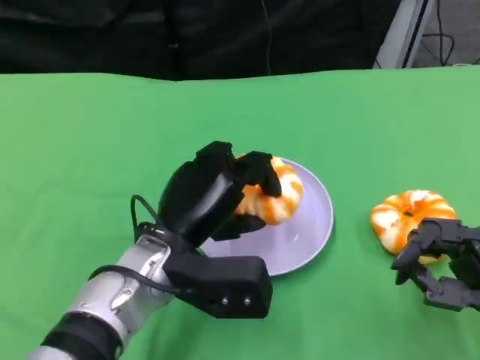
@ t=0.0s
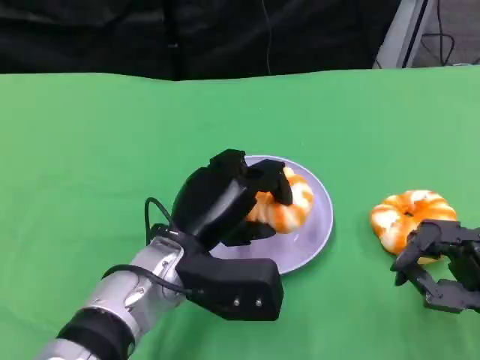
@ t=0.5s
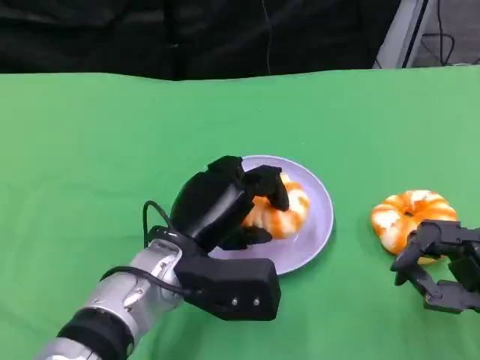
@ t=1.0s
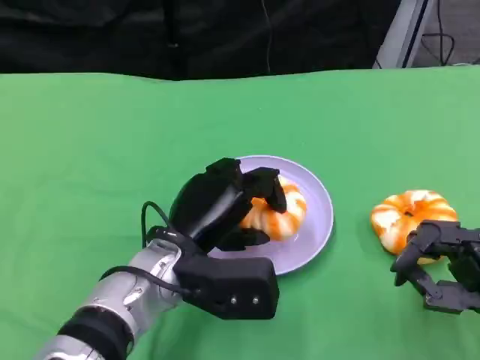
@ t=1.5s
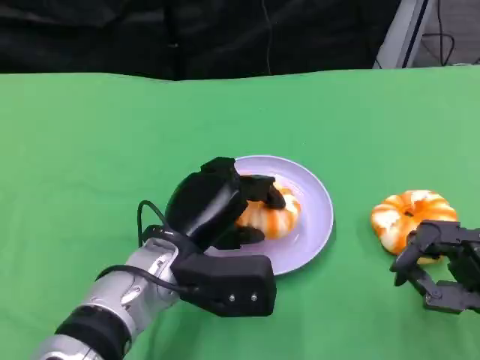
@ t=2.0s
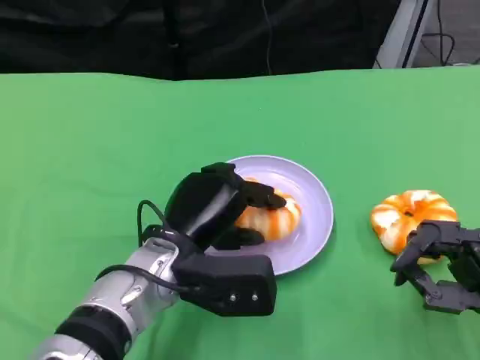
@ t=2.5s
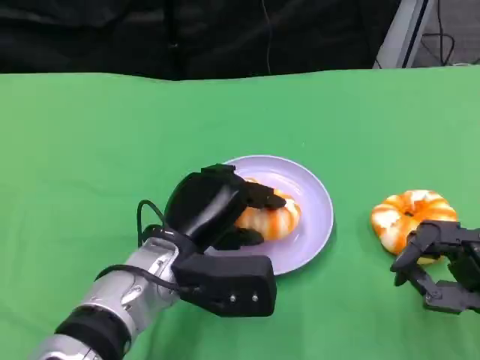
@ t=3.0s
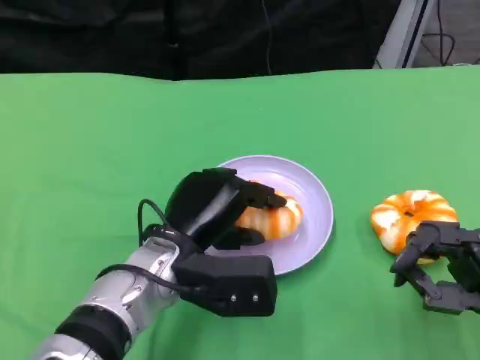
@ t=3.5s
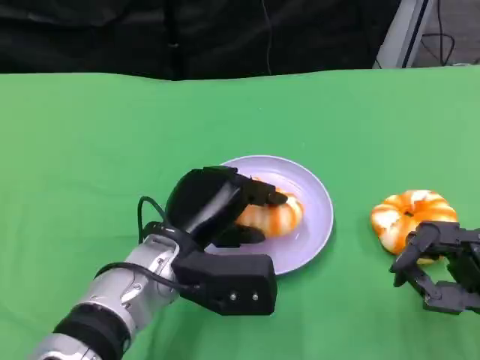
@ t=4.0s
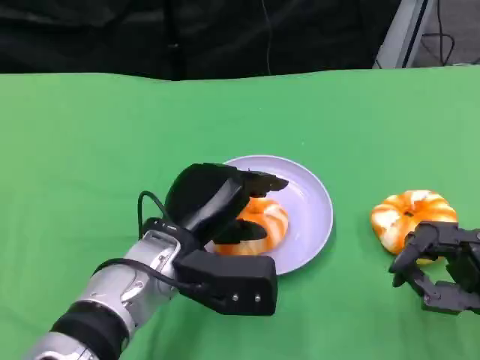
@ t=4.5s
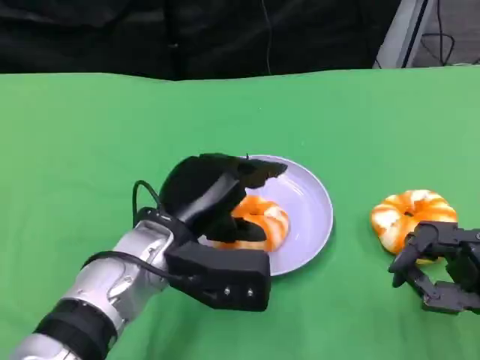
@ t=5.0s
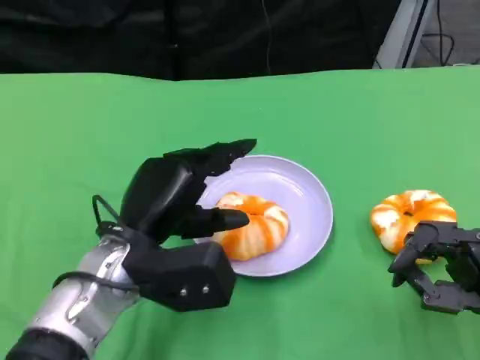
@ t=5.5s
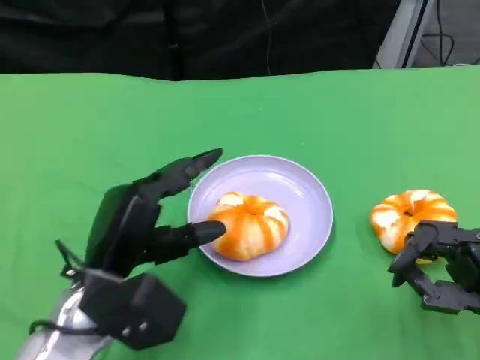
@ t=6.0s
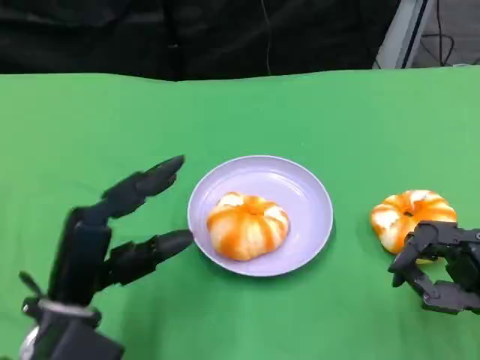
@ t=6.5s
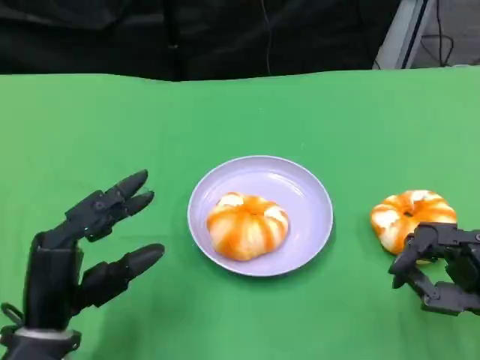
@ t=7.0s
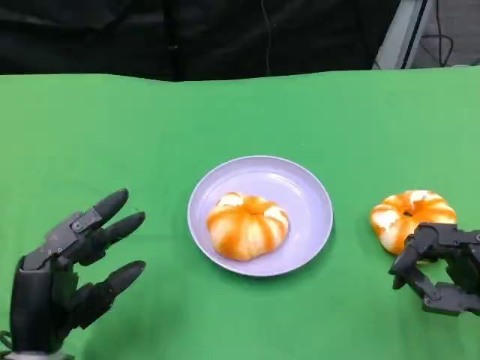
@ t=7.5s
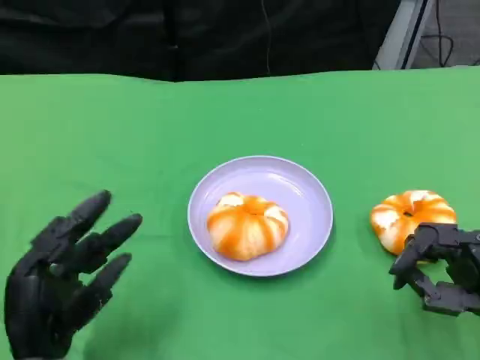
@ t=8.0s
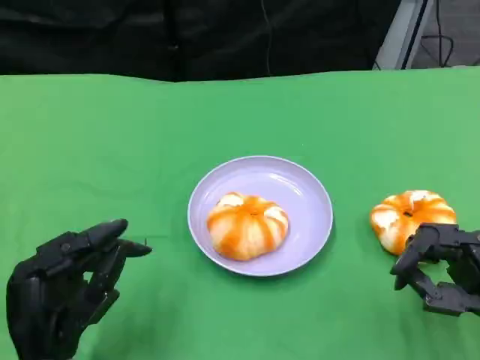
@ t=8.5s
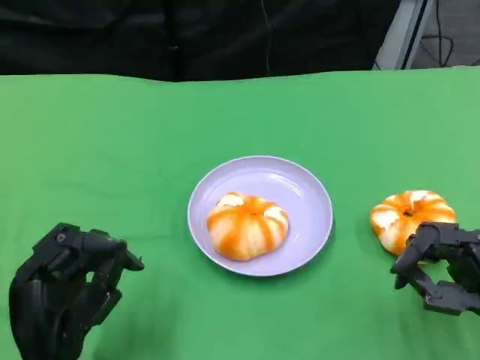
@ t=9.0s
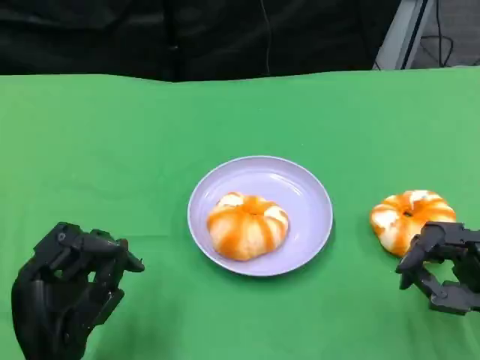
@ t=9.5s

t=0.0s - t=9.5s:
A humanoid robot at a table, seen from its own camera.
Task of the whole recording: Grasp the bread from the table and place it into the plate.
t=0.0s - t=2.0s: There are only small adjustments of the hands.
t=2.0s - t=4.0s: The two hands keep their place.
t=4.0s - t=5.5s: The hands move only a little.
t=5.5s - t=7.5s: The left hand shifts some 15 cm backward, to the left and downward.
t=7.5s - t=9.5s: The hands make only small movements.

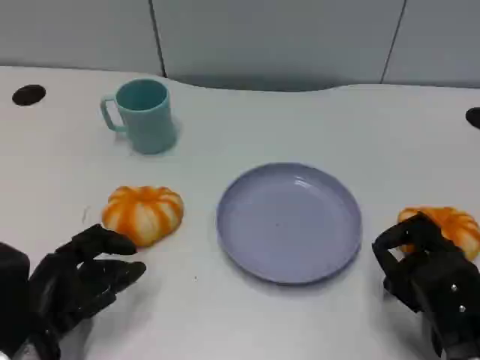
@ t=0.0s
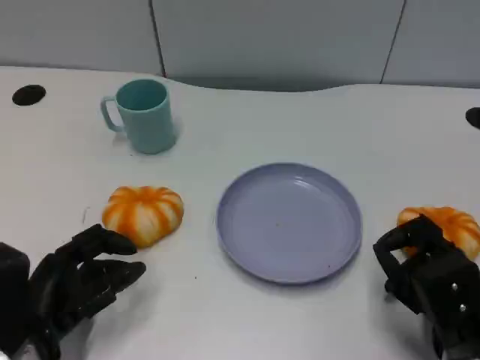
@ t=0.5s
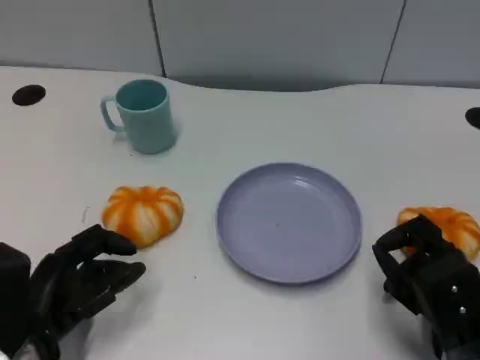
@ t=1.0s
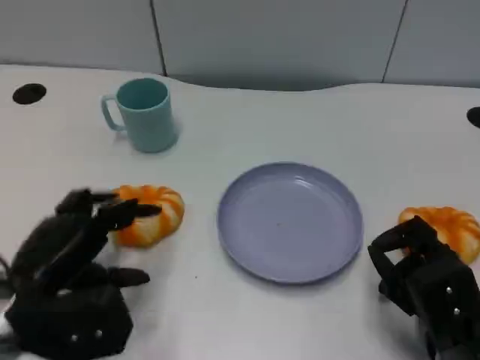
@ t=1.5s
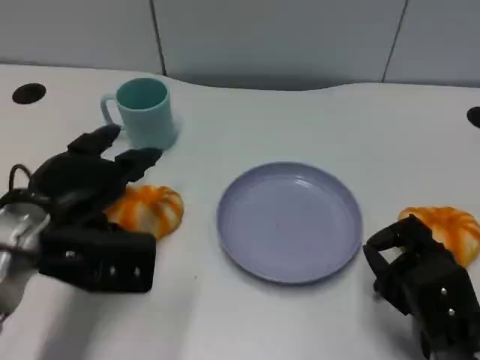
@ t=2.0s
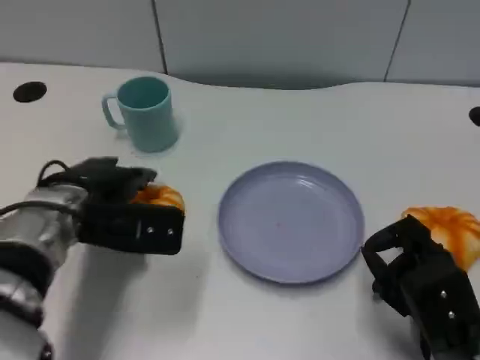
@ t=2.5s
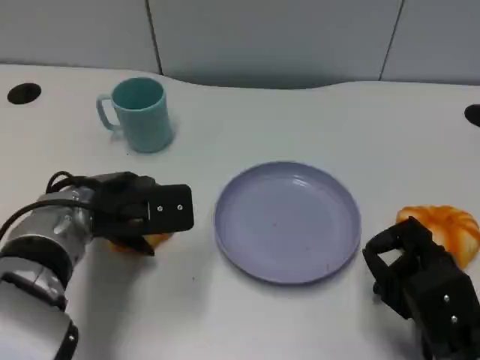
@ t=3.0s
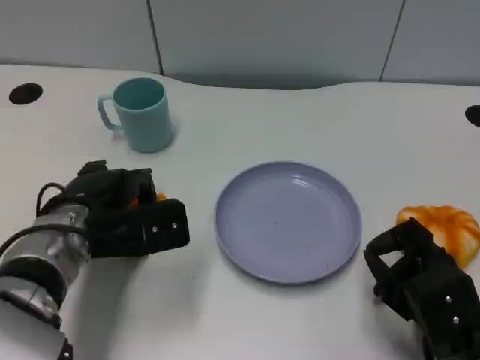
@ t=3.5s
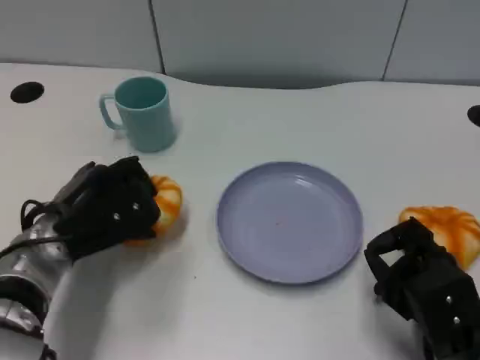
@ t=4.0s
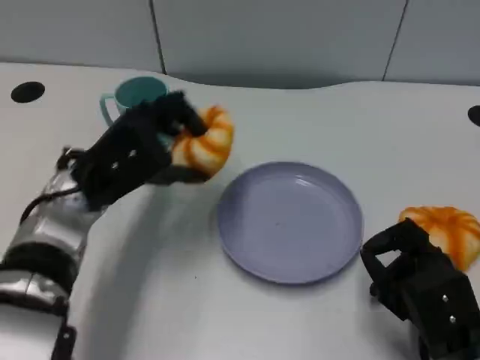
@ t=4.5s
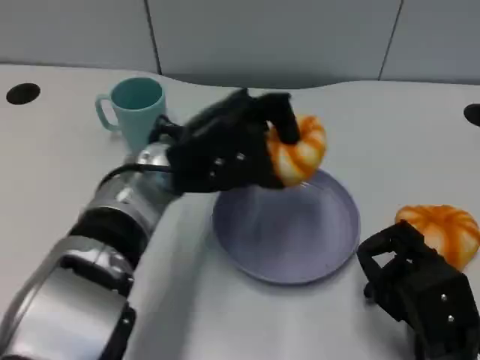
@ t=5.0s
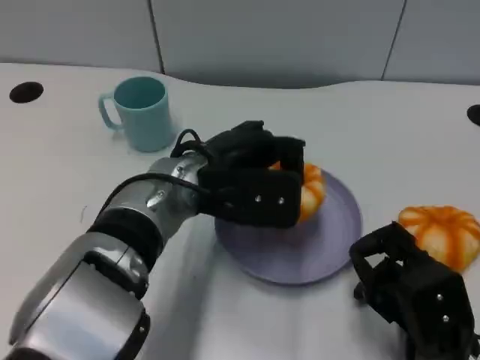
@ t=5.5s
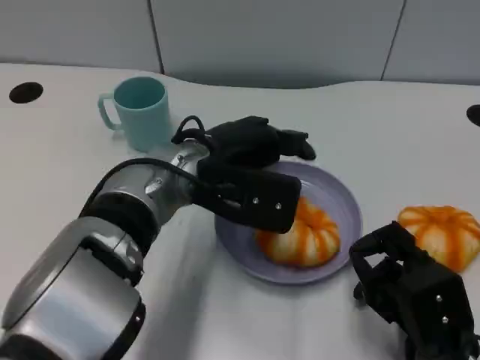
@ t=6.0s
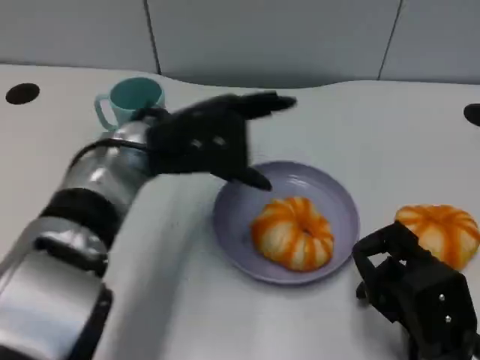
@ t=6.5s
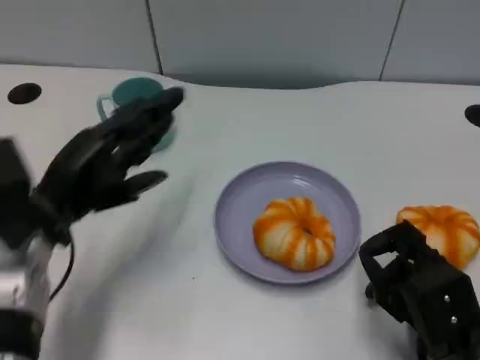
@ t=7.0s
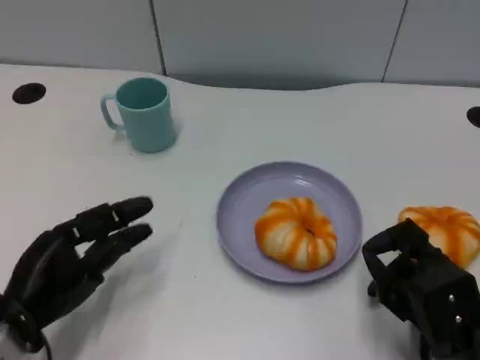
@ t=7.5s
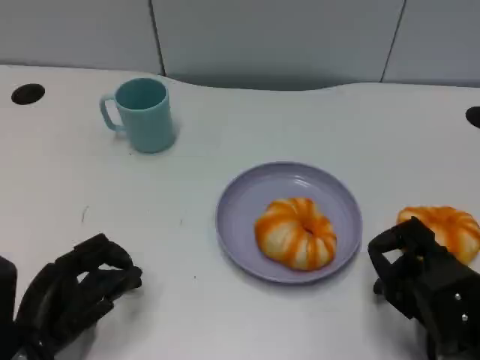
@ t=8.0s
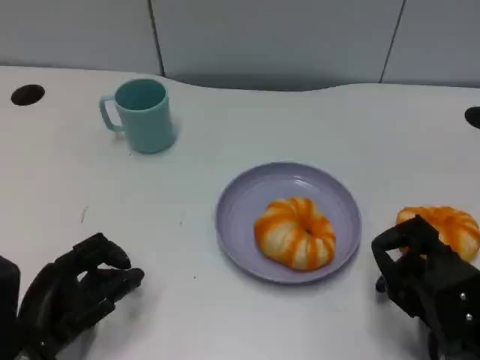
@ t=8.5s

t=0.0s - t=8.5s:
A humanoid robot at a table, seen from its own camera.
Task of the whole recording: Grasp the bread from the table and place it into the plate.
t=0.0s - t=2.0s: The left hand shifts approximately 10 cm upward and forward.
t=4.0s - t=6.5s: The left hand shifts about 10 cm upward and to the right.
t=6.5s - t=8.5s: The left hand heads backward, downward and to the left, covering some 25 cm.

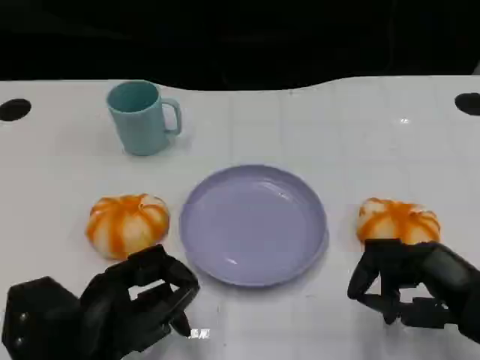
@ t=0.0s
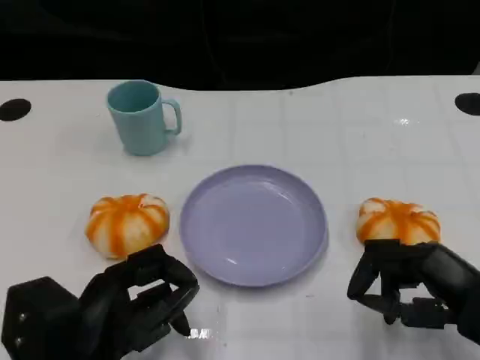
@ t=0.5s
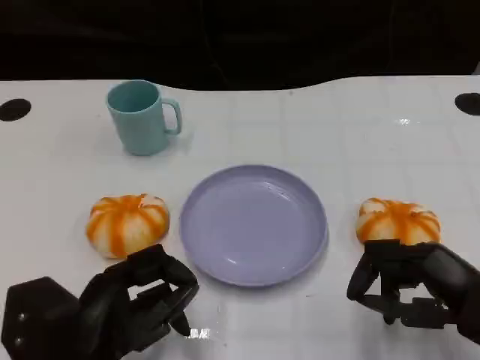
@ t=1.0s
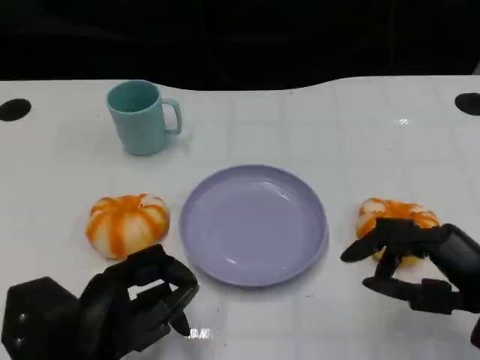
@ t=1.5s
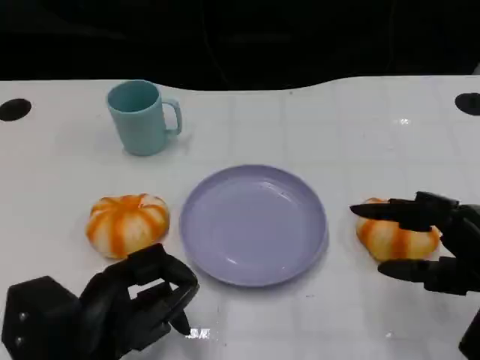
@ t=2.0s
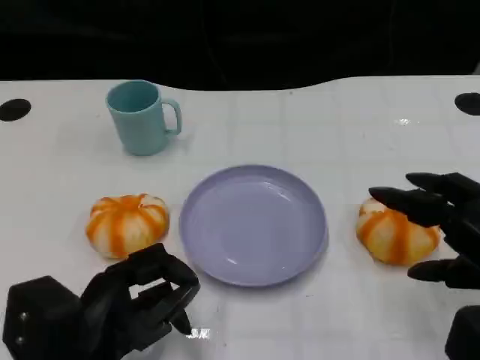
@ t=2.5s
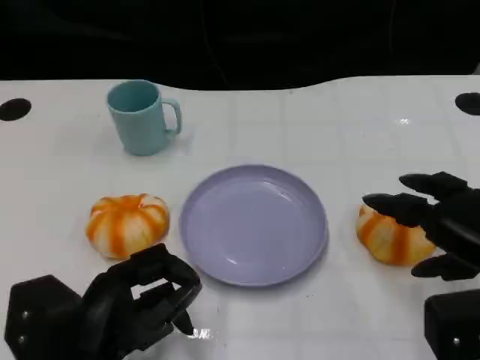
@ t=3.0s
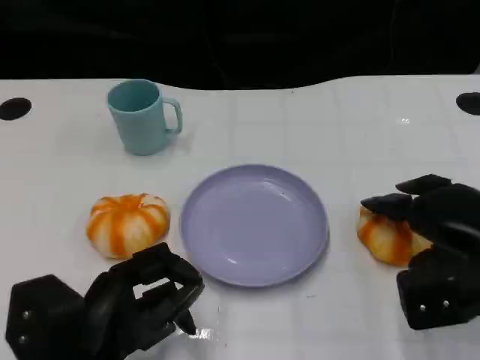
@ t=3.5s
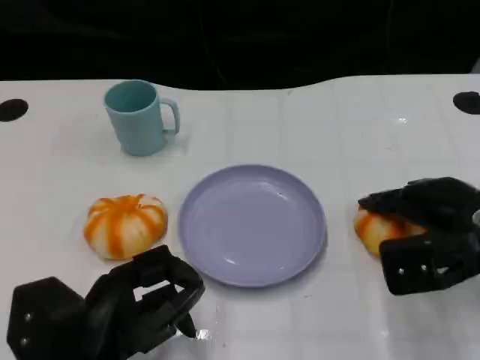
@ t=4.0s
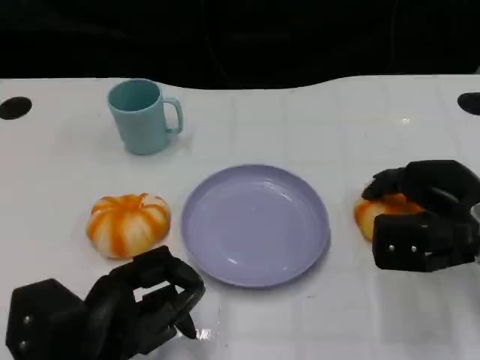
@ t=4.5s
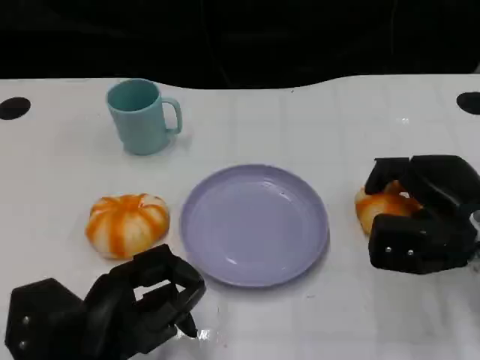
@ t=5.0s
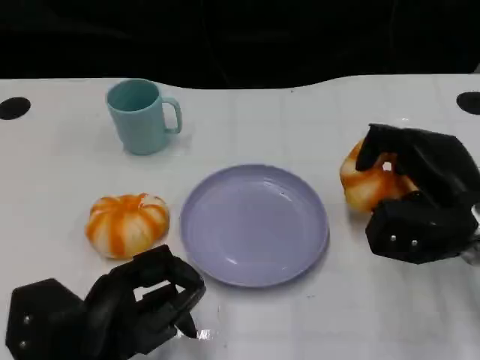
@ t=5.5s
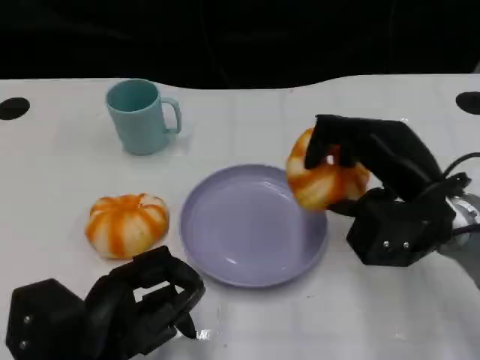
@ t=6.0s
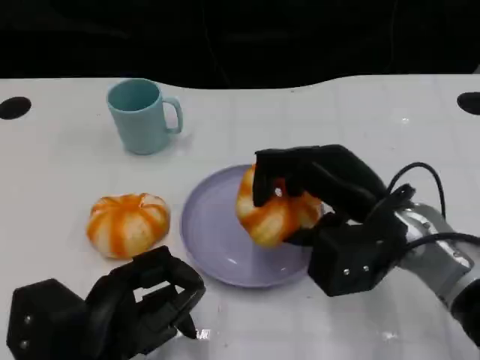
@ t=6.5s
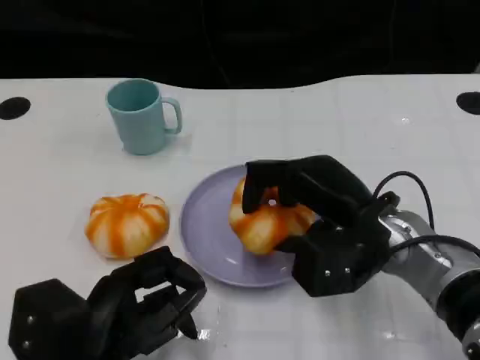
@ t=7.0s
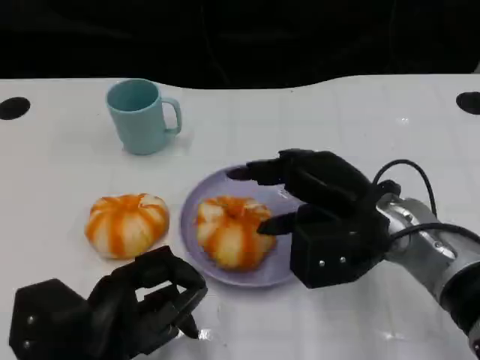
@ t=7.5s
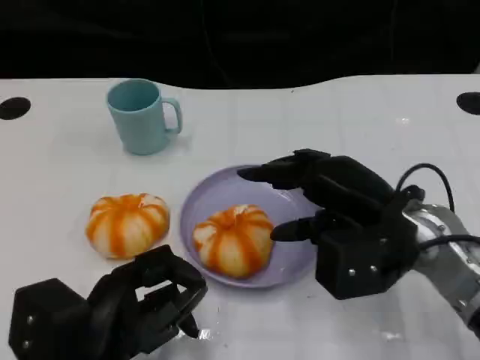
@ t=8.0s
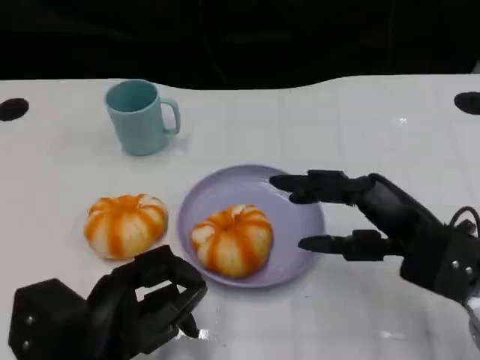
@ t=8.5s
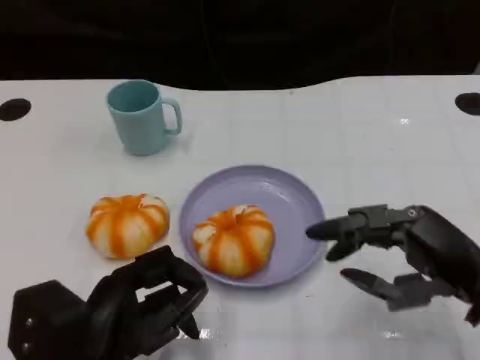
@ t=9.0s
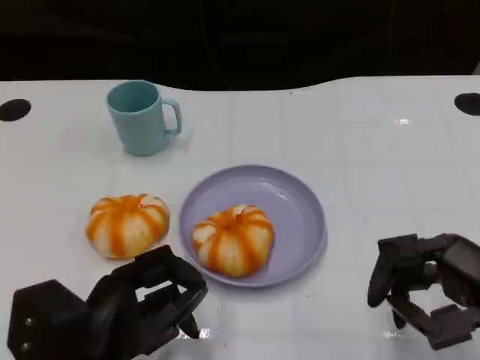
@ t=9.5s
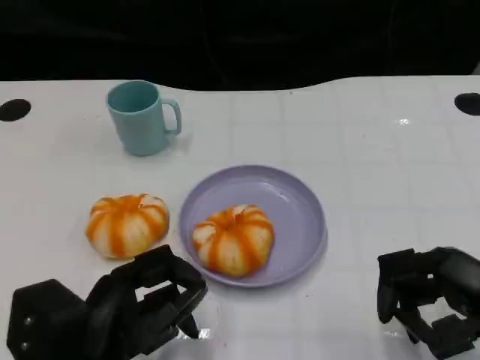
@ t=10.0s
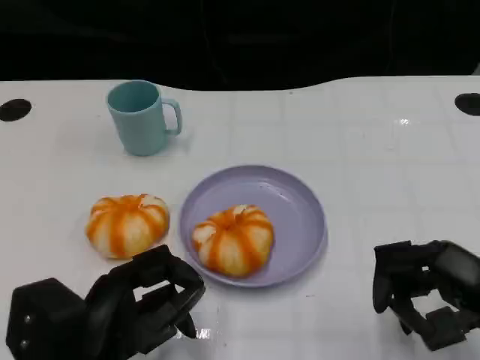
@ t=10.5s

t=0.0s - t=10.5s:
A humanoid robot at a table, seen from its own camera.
Task of the whole recording: Grasp the bread from the table and place it into the plate.
t=2.0s - t=4.0s: The right hand moves forward, about 10 cm.
t=4.0s - t=6.5s: The right hand travels to the left by some 10 cm.
t=6.5s - t=8.5s: The right hand travels to the right by about 5 cm.
t=8.5s - t=10.5s: The right hand travels to the right and backward by about 10 cm.
